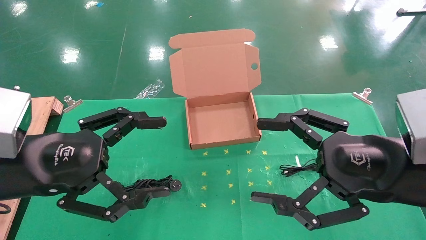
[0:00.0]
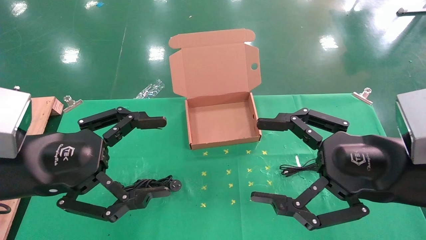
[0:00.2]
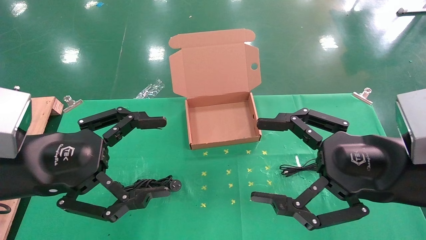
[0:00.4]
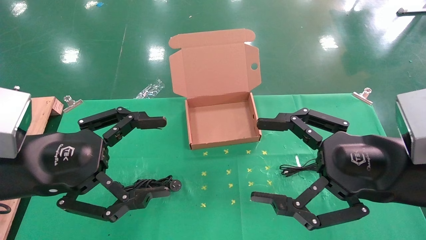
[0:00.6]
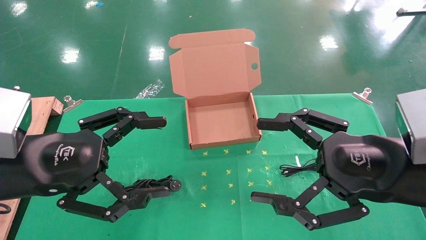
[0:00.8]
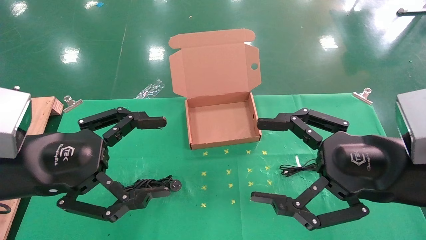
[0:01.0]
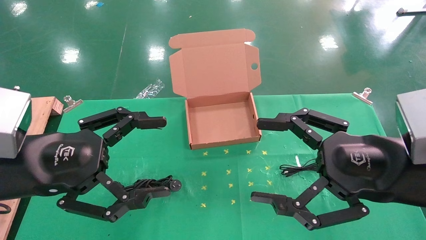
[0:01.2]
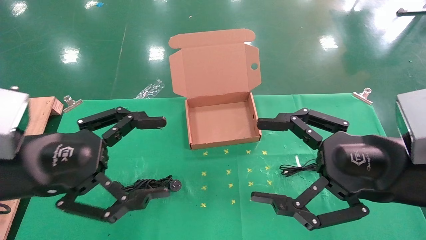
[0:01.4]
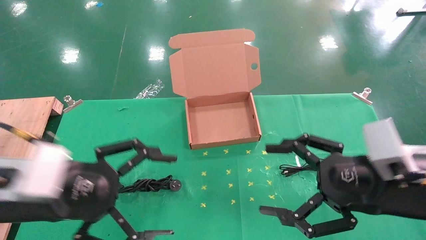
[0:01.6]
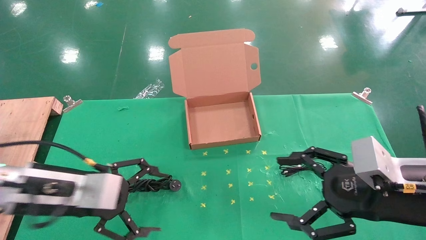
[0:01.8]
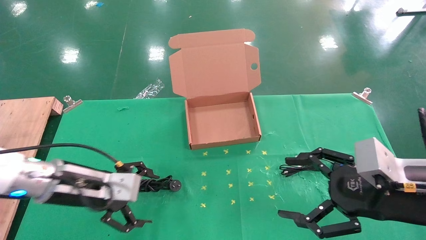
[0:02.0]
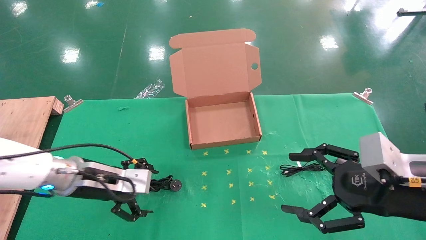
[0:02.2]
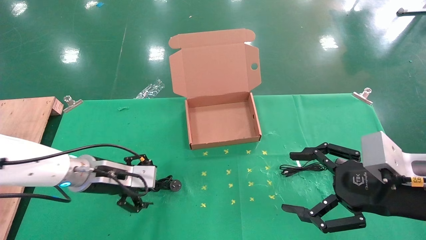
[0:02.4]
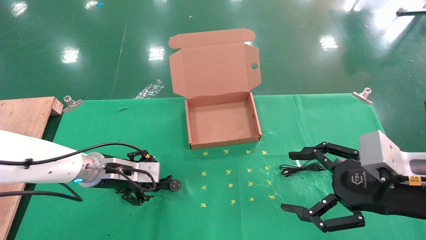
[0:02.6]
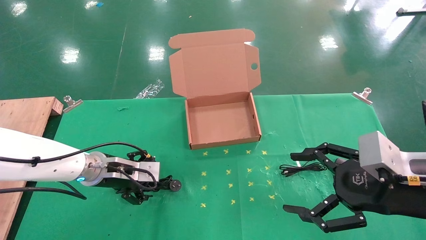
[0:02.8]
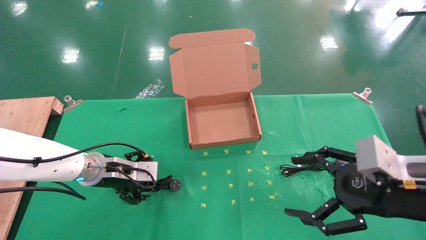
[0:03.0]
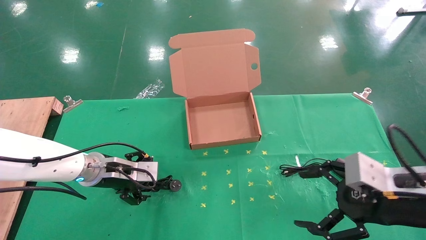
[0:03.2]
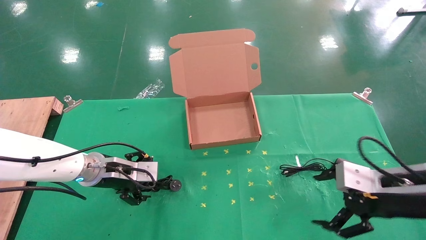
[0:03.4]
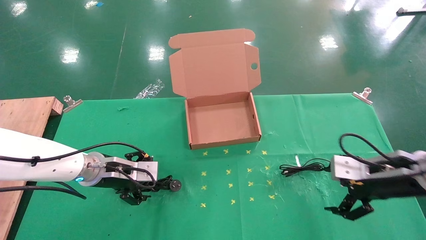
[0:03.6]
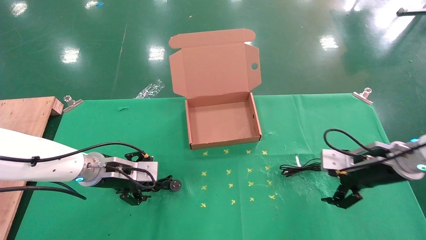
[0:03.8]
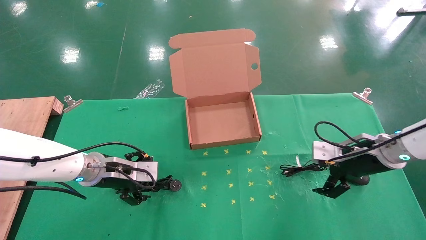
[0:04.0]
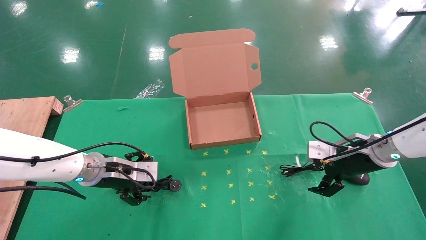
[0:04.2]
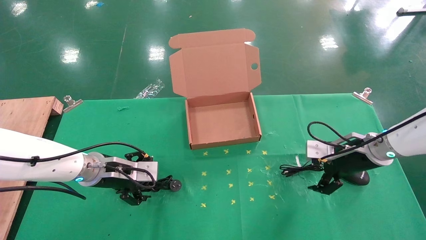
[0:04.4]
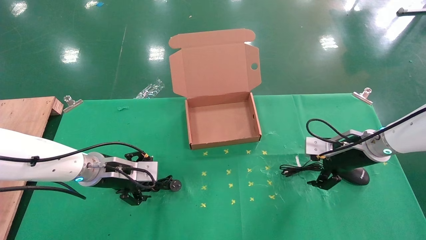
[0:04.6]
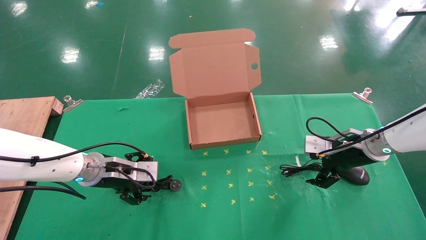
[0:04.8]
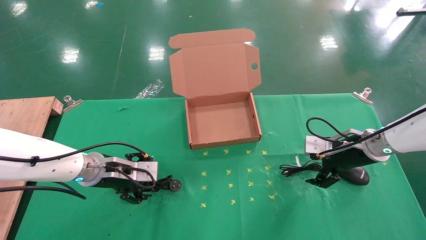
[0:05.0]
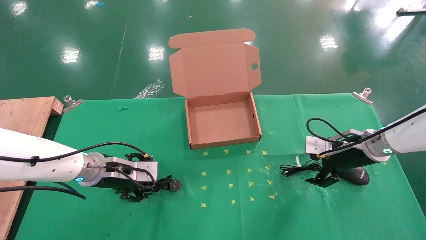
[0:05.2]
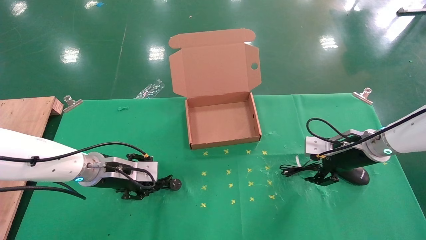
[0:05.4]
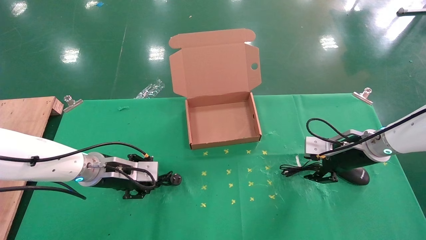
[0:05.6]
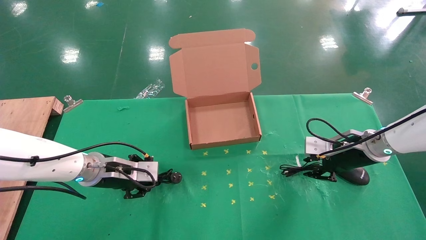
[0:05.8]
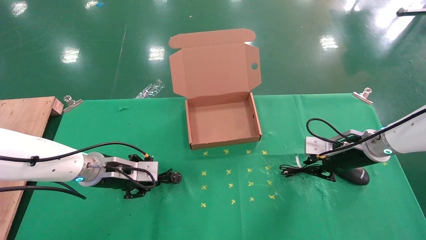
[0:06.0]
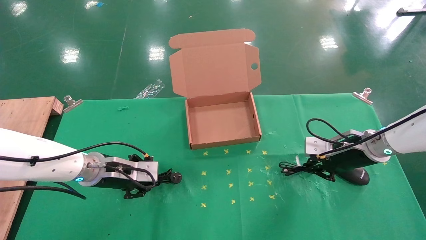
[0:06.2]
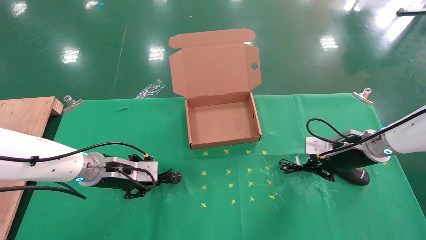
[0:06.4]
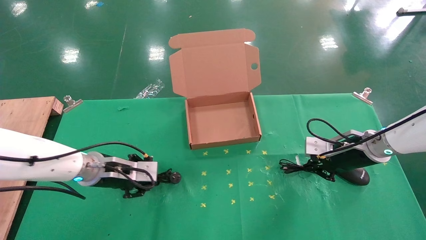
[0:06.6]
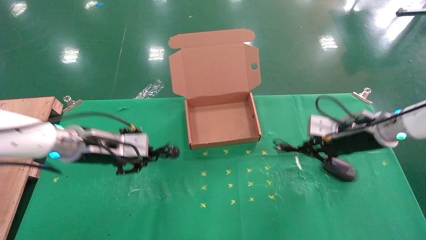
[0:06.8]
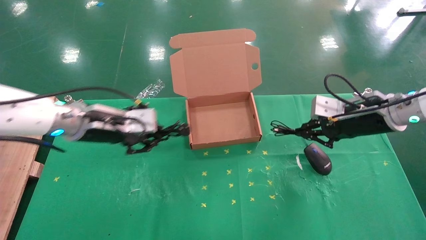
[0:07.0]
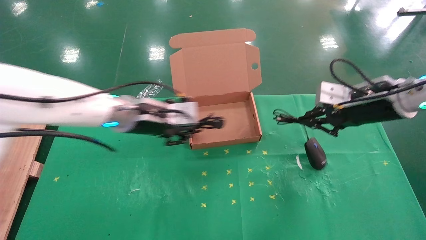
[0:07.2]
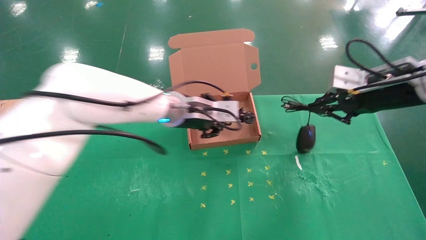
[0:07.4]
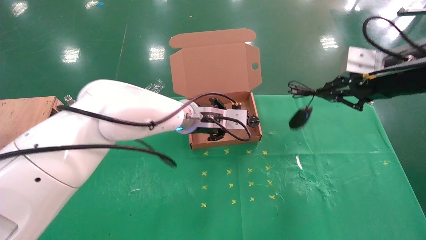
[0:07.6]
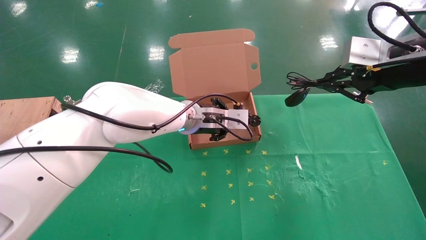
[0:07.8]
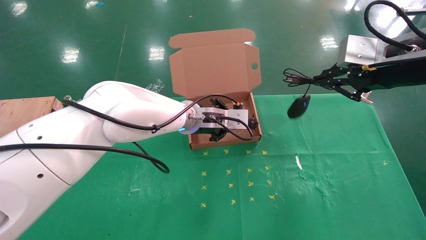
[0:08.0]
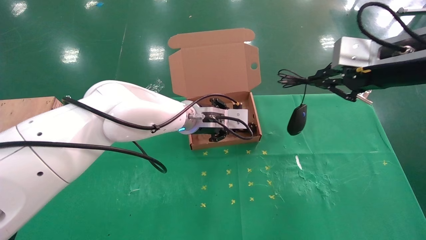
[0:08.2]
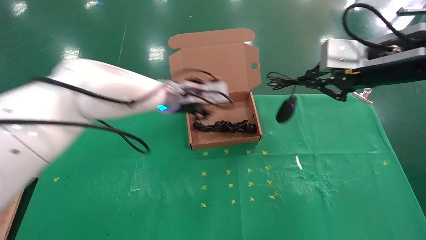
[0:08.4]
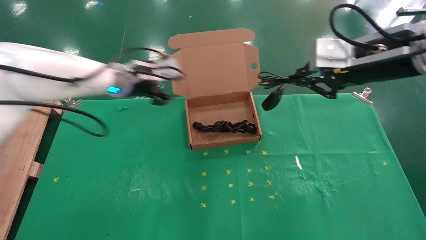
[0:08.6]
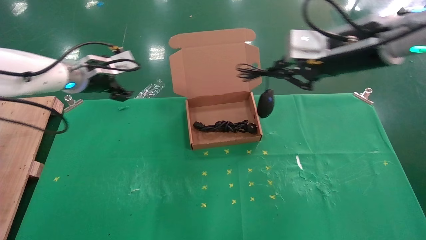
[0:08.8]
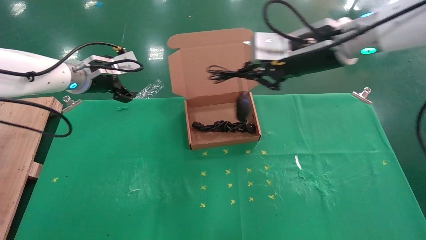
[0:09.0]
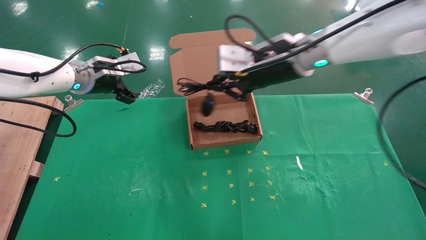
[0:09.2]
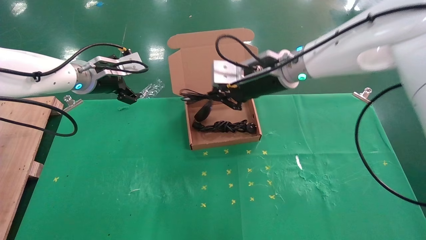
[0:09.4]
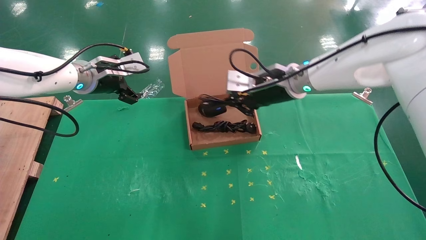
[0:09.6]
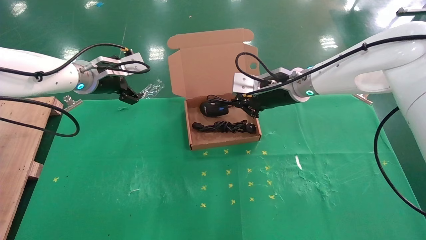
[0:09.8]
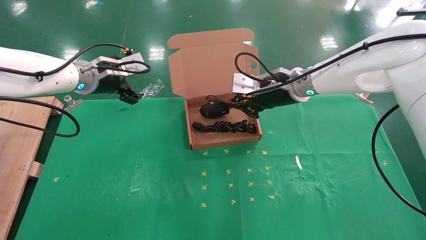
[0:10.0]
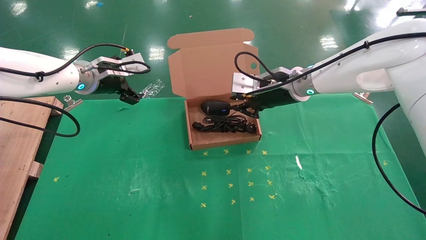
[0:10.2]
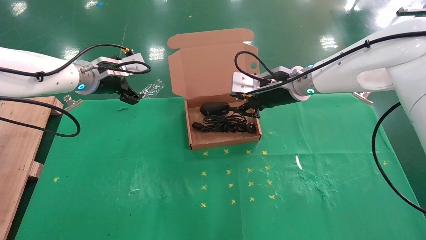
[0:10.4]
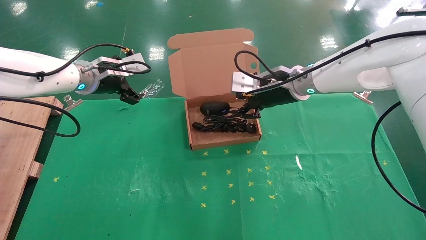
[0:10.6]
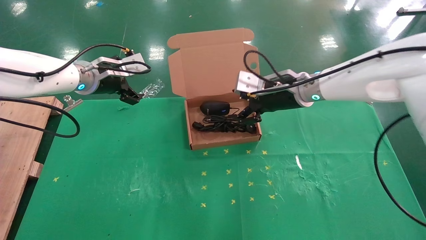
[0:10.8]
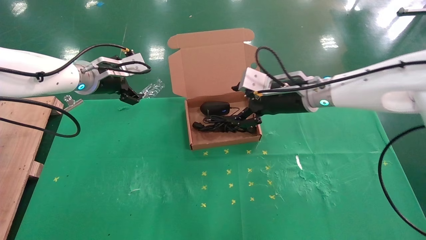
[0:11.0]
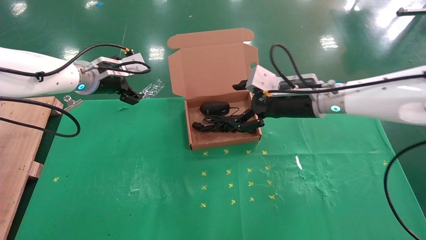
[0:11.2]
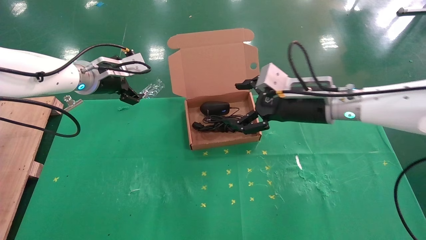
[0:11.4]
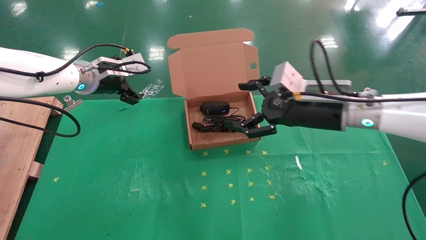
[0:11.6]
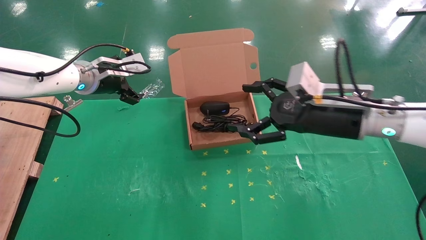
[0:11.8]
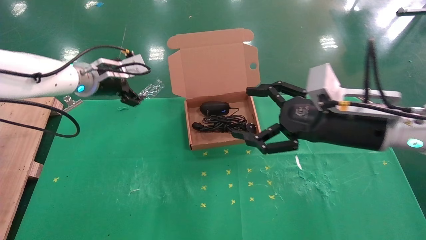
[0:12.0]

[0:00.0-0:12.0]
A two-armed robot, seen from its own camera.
Task of the whole recording: grasp data cable left put into box grasp mouse right put into box.
Step, 0:01.8 to 0:06.4: Simultaneously pick up the mouse and power cord from the accessory packaging area.
Step, 0:06.6 to 0:10.4: Place the mouse and power cord into the box.
0:00.0 to 0:01.6: The left gripper ends up some 5 cm from where it was.
0:01.6 to 0:03.0: The left gripper moves forward and downward, roughly 20 cm.
0:03.0 to 0:04.4: The right gripper shifts about 20 cm forward.
0:04.4 to 0:06.0: The right gripper closes its fingers. Meanwhile the left gripper closes its fingers.
0:06.0 to 0:07.6: The right gripper moves upward, approximately 20 cm. Meanwhile the left gripper shifts some 20 cm to the right and upward.
0:07.6 to 0:09.0: Both grippers travel together to the left, roughly 20 cm. The left gripper opens.
0:09.0 to 0:10.4: The right gripper shifts approximately 10 cm downward and forward.
0:10.4 to 0:12.0: The right gripper goes roughly 15 cm backward and to the right, and opens up.

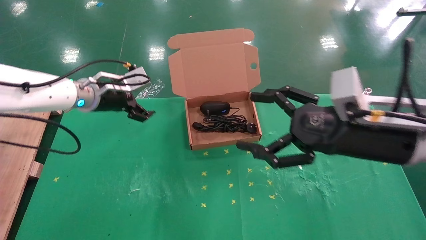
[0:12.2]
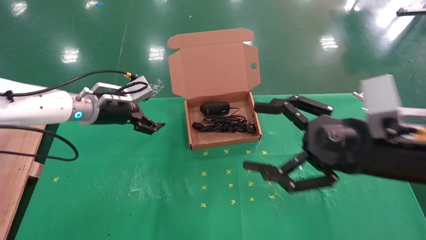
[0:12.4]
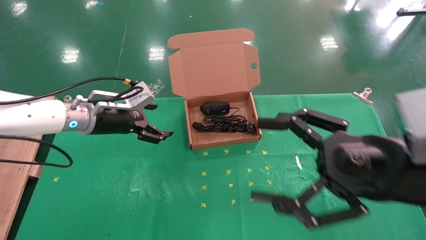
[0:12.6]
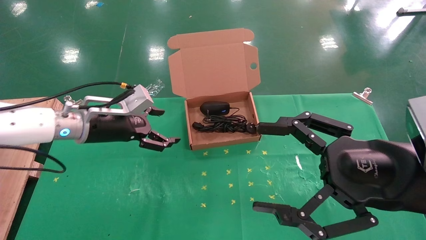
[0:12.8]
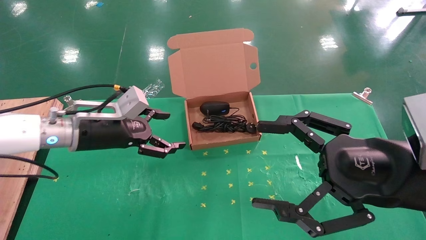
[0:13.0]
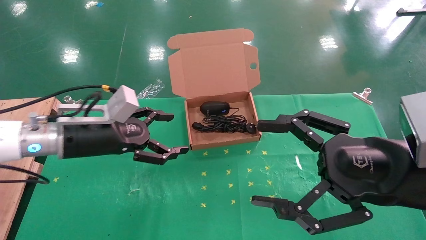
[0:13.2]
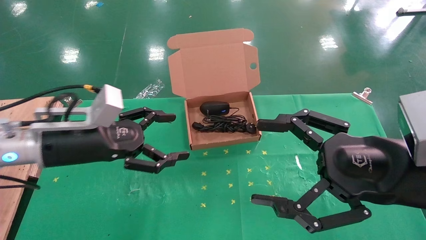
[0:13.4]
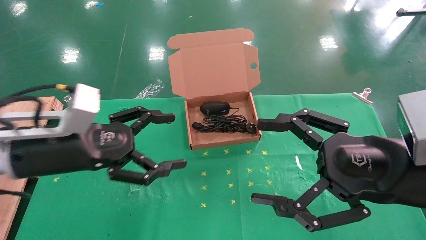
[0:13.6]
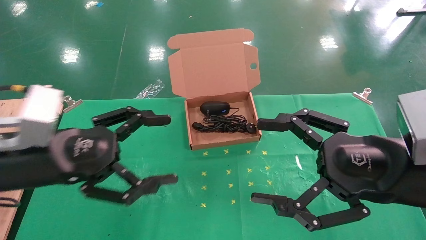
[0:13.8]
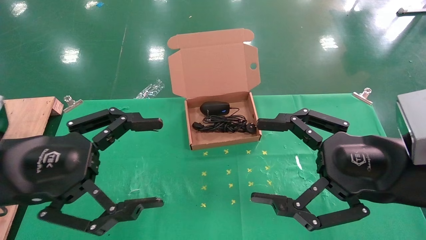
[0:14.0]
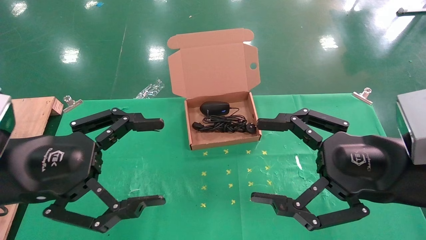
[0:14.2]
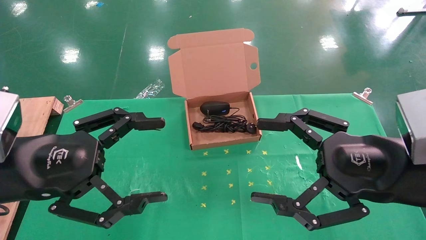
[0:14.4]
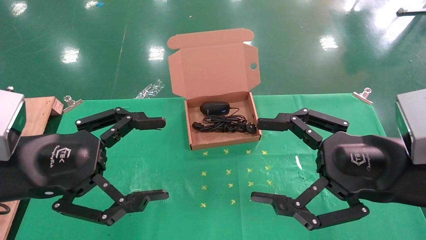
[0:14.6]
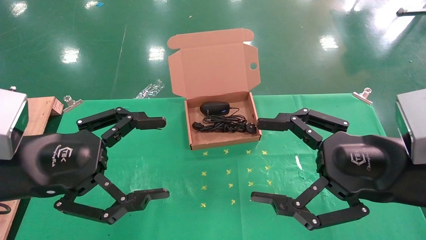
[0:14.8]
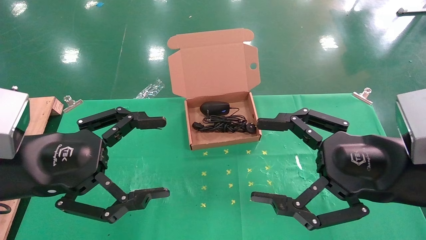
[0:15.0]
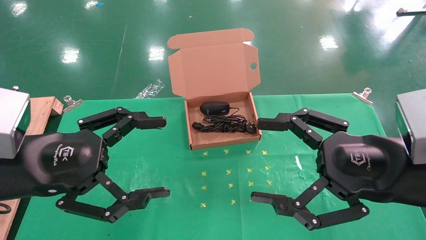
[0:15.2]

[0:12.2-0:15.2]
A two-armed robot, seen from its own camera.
Task of the whole recording: grasp data cable left put into box grasp mouse right put into box.
0:12.2 to 0:13.8: The right gripper goes approximately 5 cm backward; the left gripper shifts roughly 25 cm backward.
0:13.8 to 0:15.2: The grippers stay close to where they were, moving slightly.
